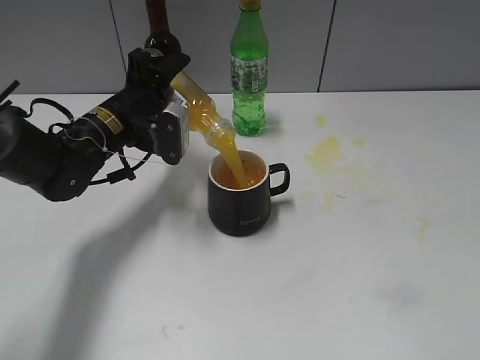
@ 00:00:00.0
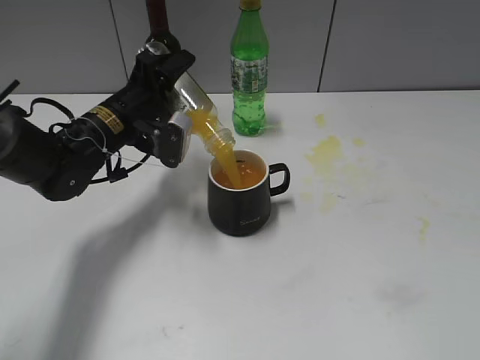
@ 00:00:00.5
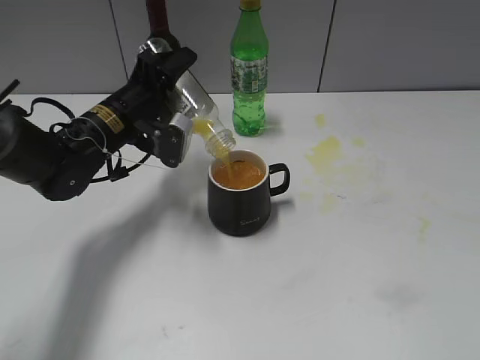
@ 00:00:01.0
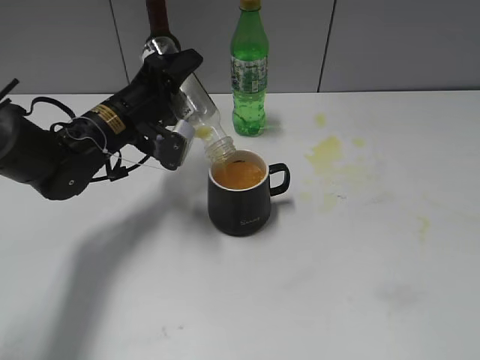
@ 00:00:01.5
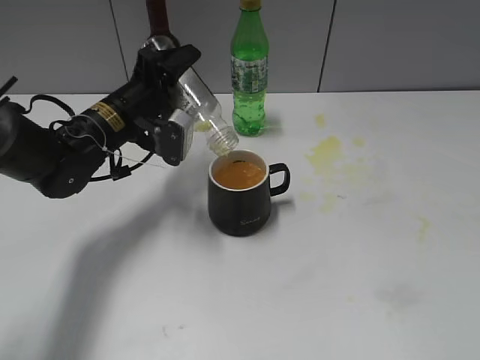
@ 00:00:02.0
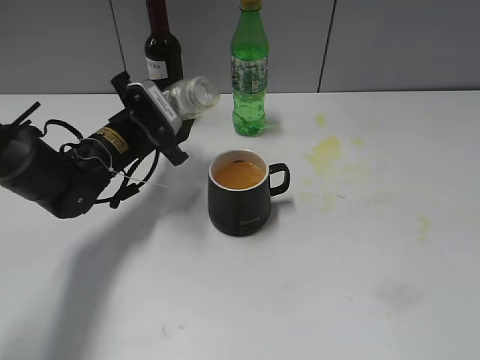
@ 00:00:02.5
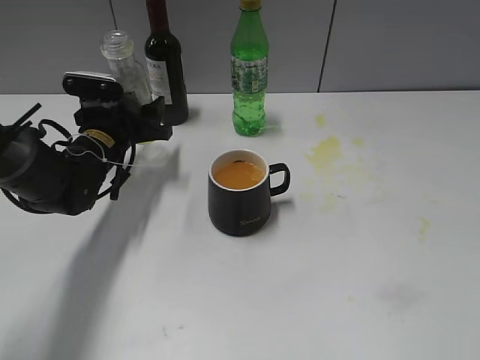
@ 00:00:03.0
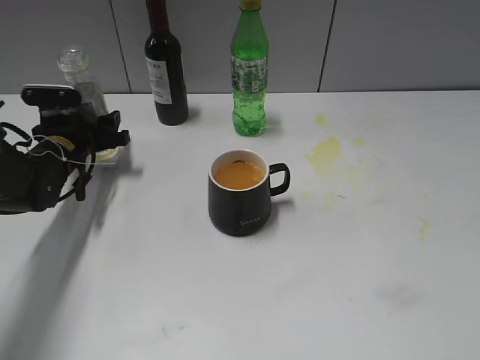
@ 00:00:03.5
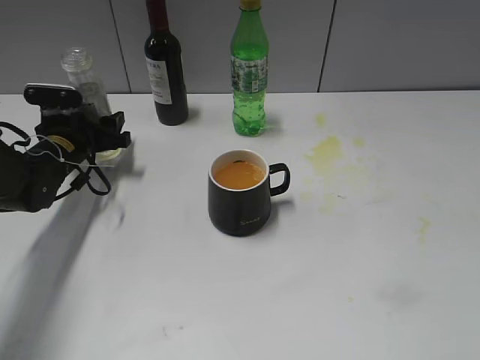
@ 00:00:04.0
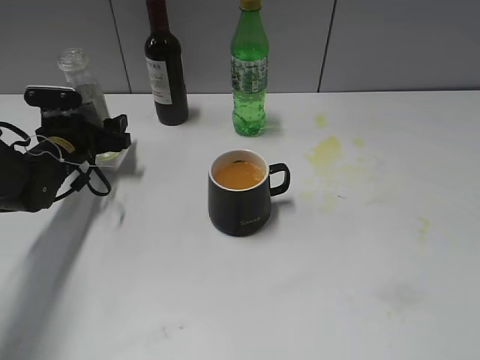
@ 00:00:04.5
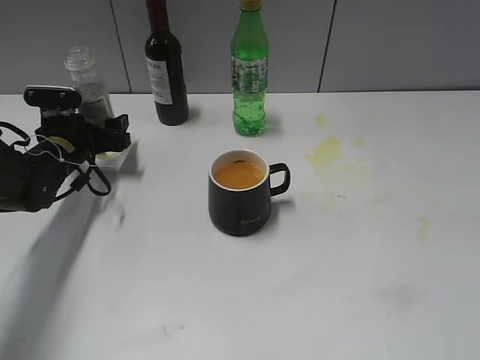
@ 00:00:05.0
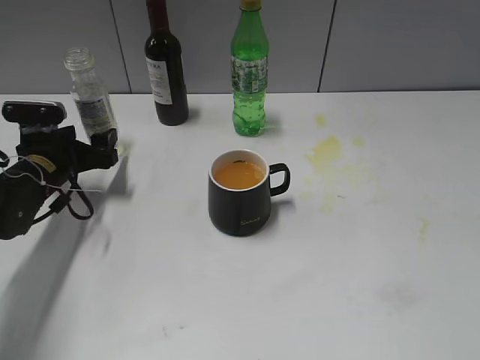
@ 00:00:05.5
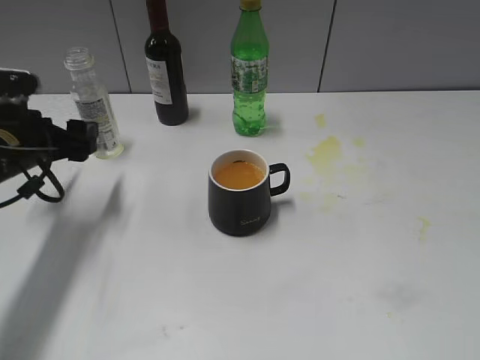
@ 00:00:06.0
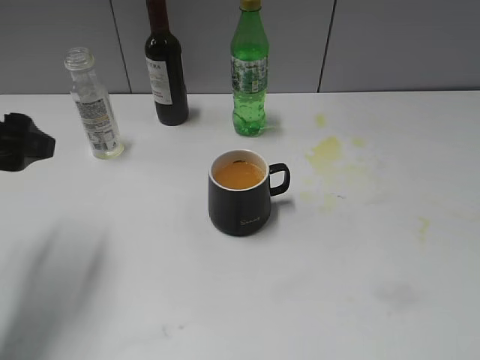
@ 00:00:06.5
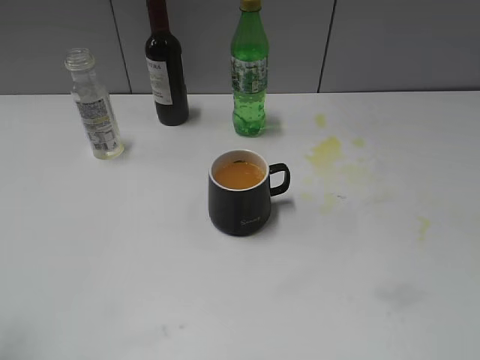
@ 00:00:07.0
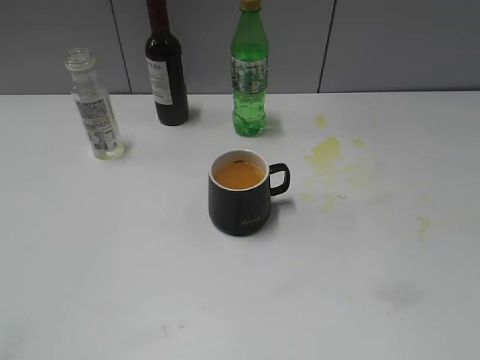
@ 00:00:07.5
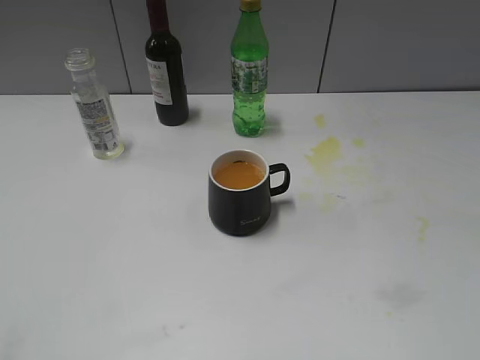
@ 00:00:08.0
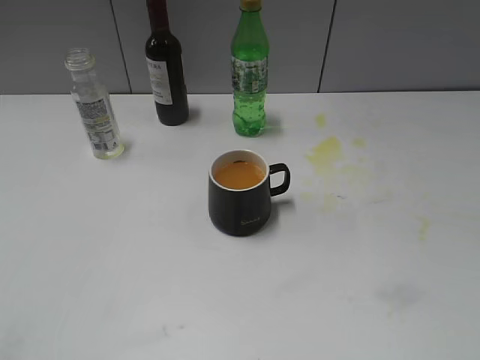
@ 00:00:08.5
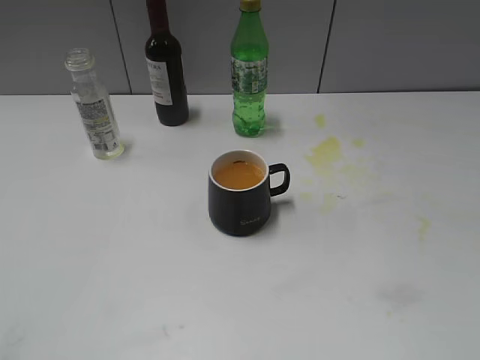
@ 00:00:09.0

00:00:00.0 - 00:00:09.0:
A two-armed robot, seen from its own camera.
Step, 00:00:00.0 - 00:00:02.0: Pour the orange juice from bottle to cup with left gripper.
Step, 00:00:02.5 - 00:00:04.0: Place the orange juice bottle on the table with left gripper.
00:00:00.0 - 00:00:02.0: The grippers move only a little.
00:00:02.0 - 00:00:04.5: The left gripper moves to the left and downward, about 15 cm.
00:00:04.5 - 00:00:07.0: The left gripper moves backward and upward, some 40 cm.
